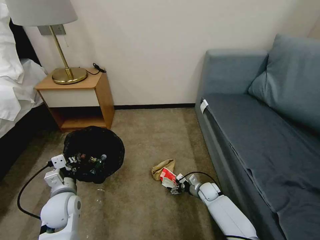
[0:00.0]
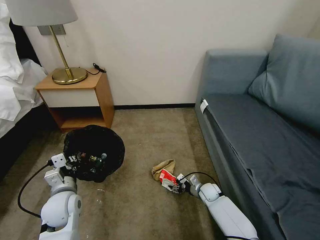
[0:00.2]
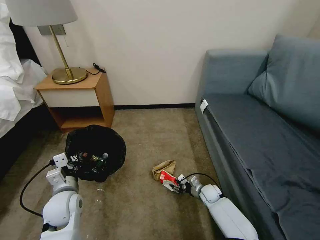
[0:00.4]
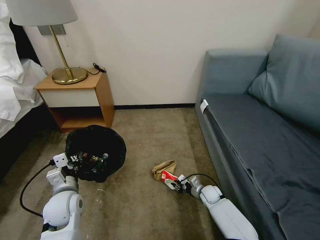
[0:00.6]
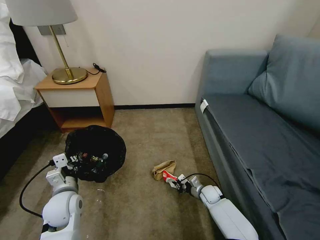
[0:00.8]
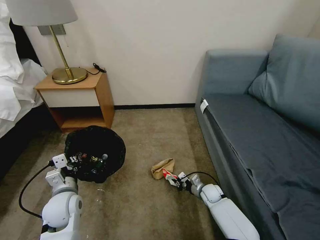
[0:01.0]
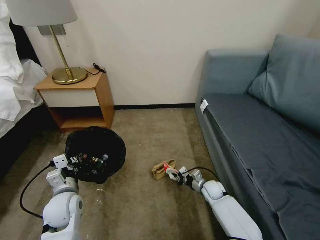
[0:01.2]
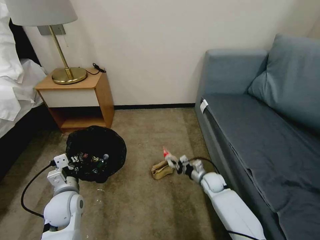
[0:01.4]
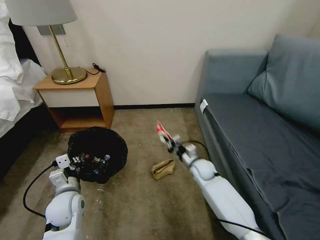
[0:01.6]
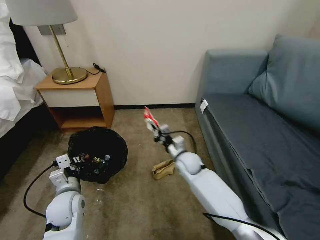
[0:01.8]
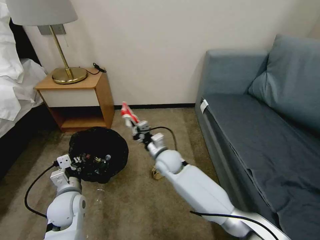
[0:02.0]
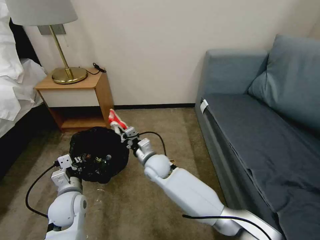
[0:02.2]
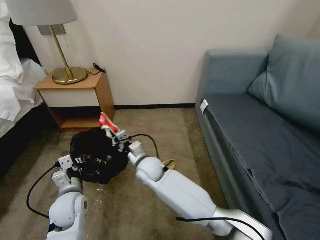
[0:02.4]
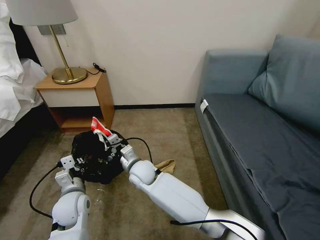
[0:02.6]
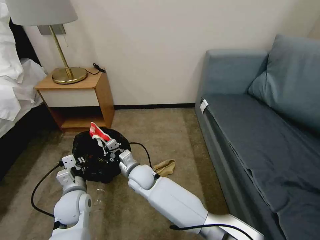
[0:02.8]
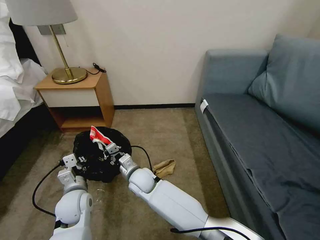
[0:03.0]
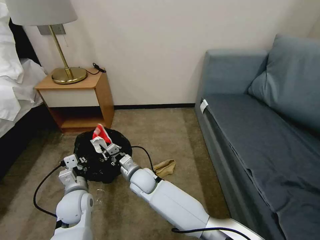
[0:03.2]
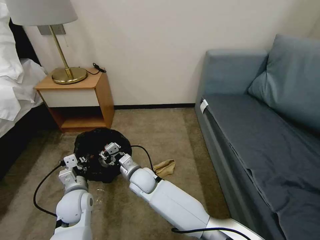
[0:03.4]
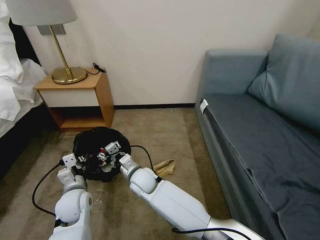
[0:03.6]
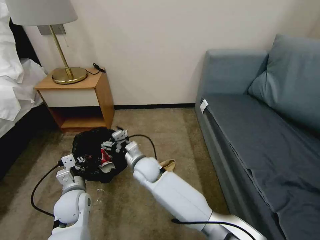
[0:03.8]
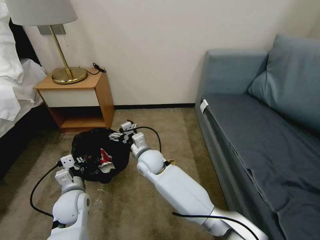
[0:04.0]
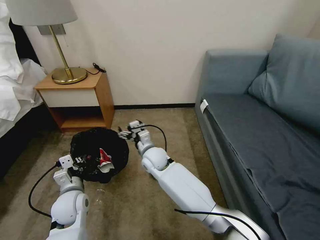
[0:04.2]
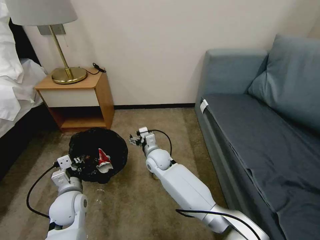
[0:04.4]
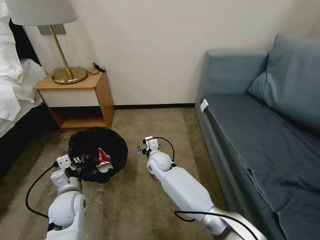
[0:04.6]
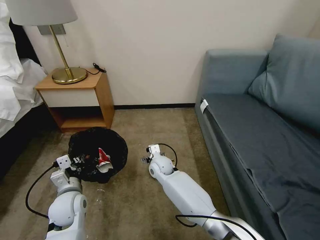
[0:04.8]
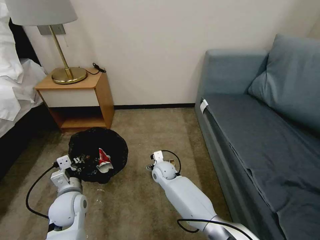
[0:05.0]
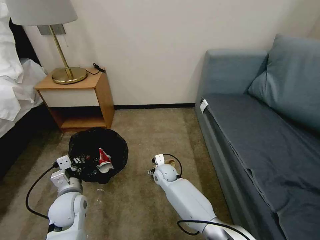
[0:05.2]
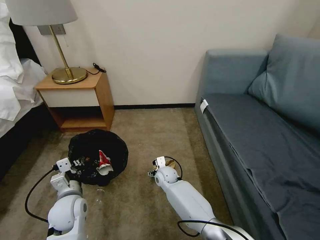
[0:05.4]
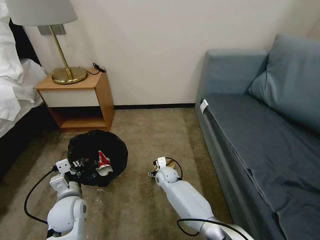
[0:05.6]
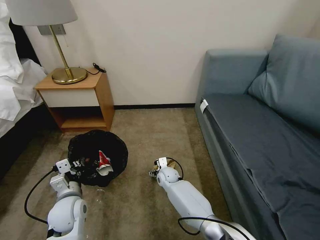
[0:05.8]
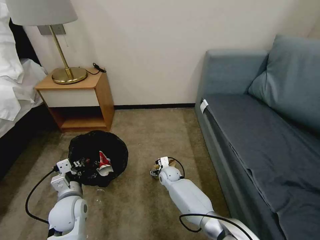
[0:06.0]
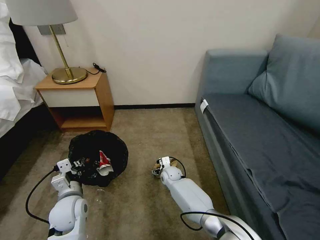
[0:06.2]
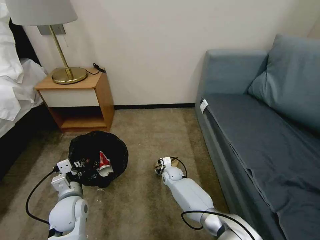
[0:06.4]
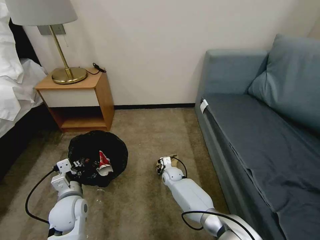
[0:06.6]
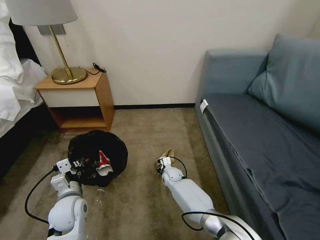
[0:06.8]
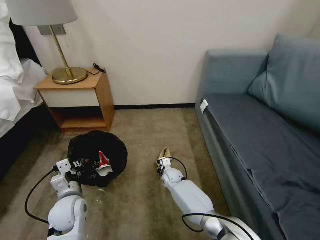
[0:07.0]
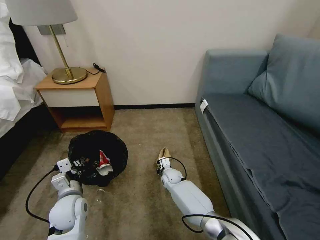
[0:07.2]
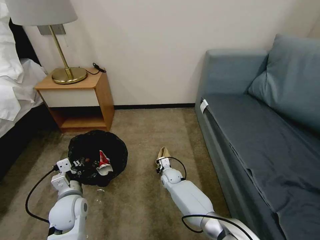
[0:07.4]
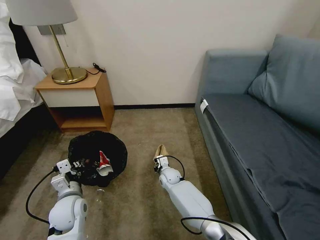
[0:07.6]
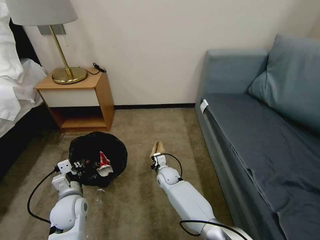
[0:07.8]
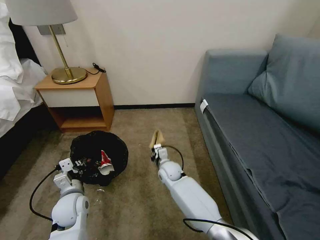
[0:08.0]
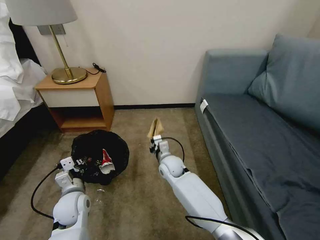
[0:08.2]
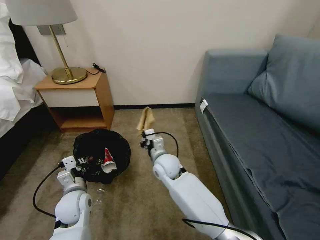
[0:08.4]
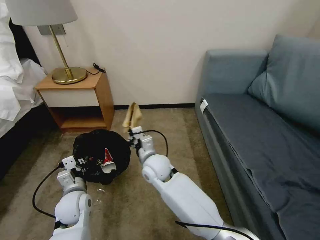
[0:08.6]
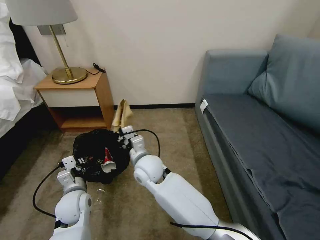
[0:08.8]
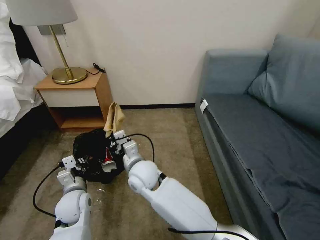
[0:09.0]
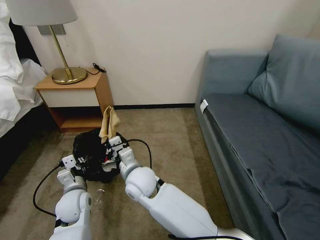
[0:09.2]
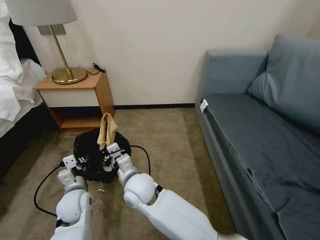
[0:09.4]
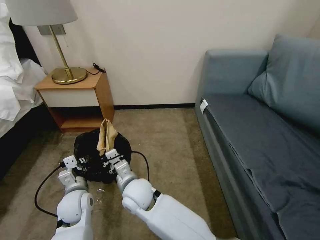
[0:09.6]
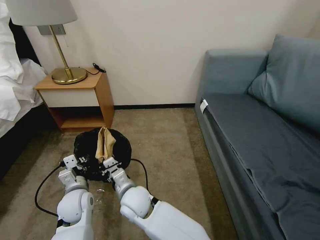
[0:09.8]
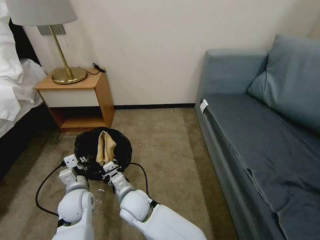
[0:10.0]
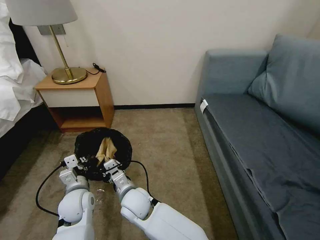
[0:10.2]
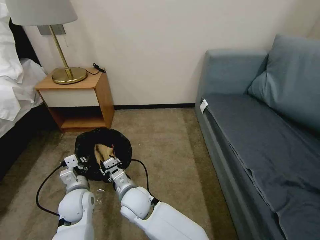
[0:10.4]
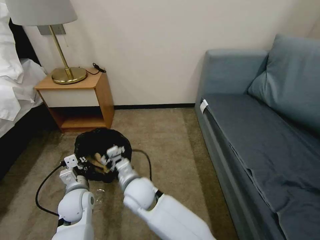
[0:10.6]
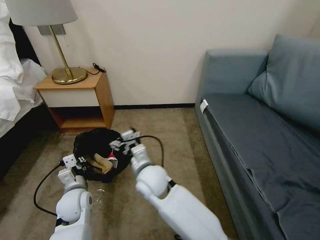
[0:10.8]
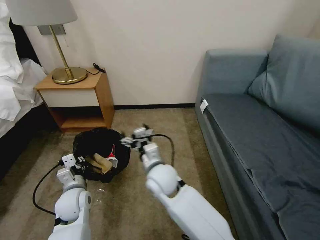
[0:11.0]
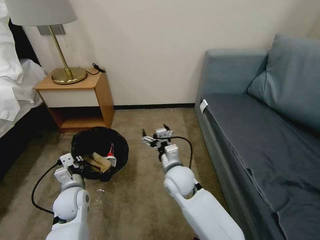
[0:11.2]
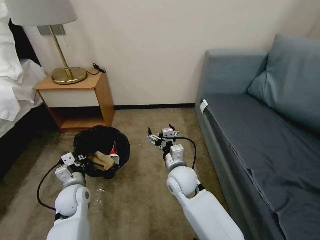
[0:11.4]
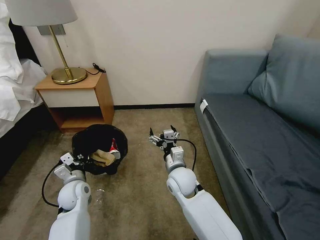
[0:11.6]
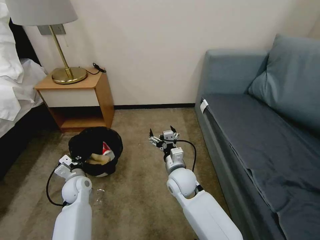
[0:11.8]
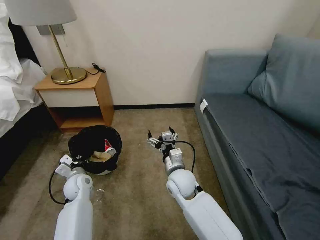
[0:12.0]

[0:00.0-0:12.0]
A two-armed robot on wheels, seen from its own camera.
Task of the whole recording: Pick up the trash bin, then pick up the garbage on the floor and place it into the trash bin.
0.0 to 1.6 s: The right gripper moves upward, about 10 cm, and closes up.
1.6 to 3.0 s: The right gripper shifts approximately 30 cm to the left.
3.0 to 4.4 s: The right gripper goes roughly 10 cm forward and to the right, and opens its fingers.
4.4 to 6.0 s: The right gripper moves downward and to the right, about 15 cm.
6.0 to 7.6 s: The right gripper closes up.
7.6 to 9.0 s: The right gripper moves upward, to the left and backward, approximately 25 cm.
9.0 to 10.4 s: The right gripper moves backward and downward, about 10 cm, and opens.
10.4 to 12.0 s: The left gripper shifts roughly 10 cm forward. Meanwhile the right gripper heads to the right and forward, covering about 15 cm, and opens up.

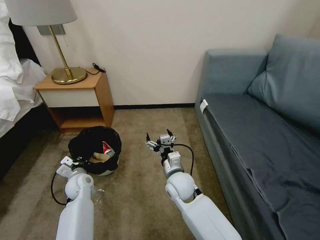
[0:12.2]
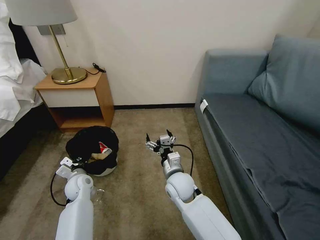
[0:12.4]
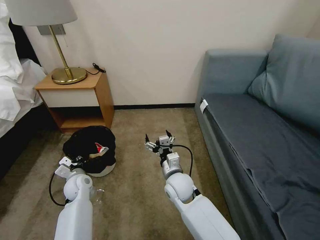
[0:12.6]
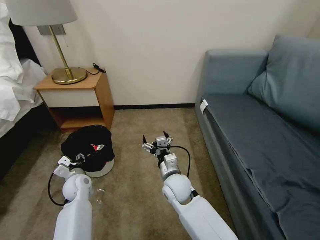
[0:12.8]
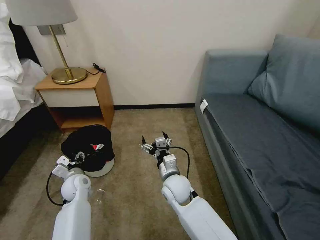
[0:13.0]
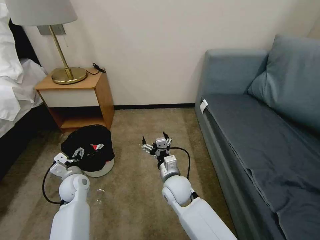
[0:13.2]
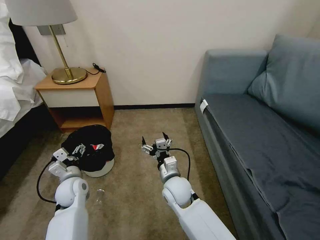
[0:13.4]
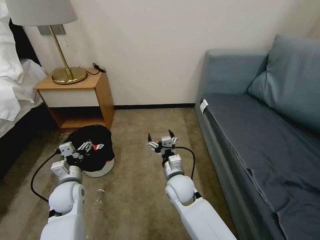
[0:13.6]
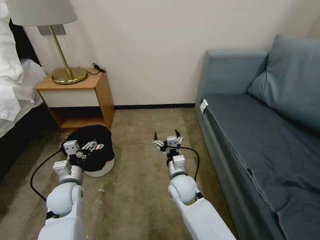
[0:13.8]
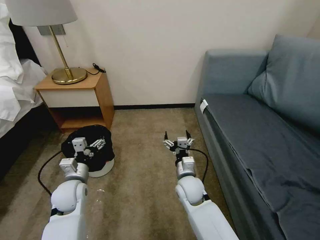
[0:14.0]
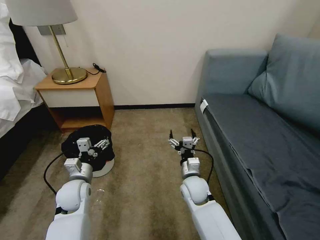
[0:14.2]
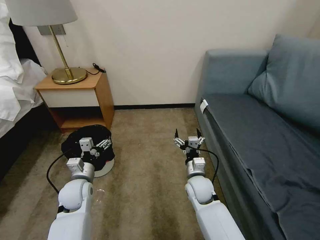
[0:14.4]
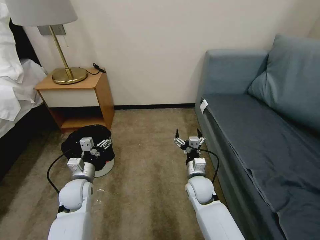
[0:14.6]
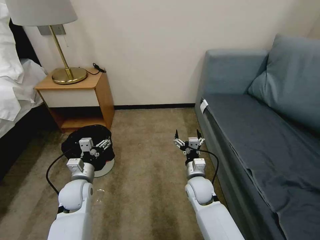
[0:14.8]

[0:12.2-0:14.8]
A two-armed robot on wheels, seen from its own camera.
Task of the whole recording: Pick up the trash bin, then pick up the garbage on the floor and place it into the trash bin.
12.2 to 13.4 s: The left gripper moves approximately 5 cm, and opens up.
13.4 to 14.8 s: The right gripper is displaced to the right by approximately 10 cm.

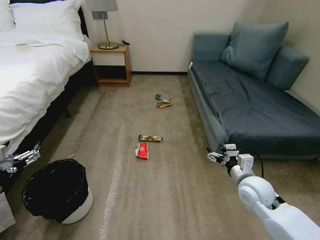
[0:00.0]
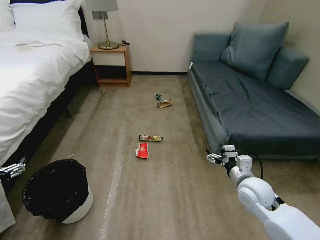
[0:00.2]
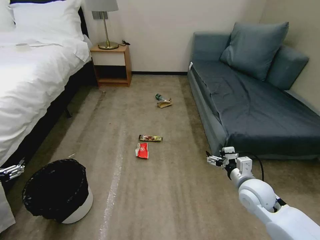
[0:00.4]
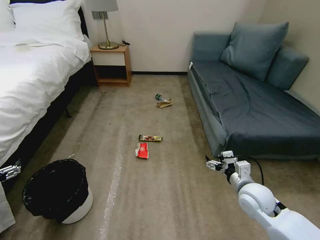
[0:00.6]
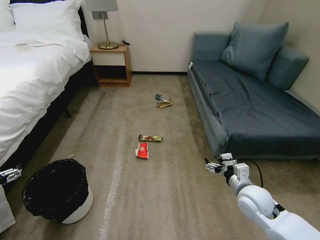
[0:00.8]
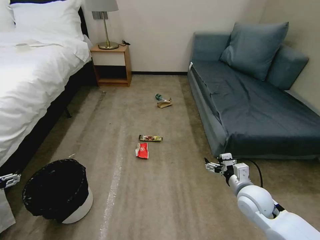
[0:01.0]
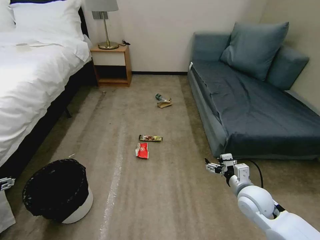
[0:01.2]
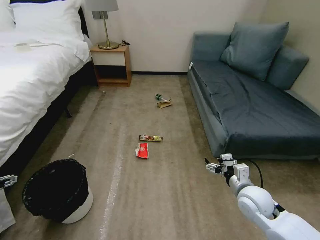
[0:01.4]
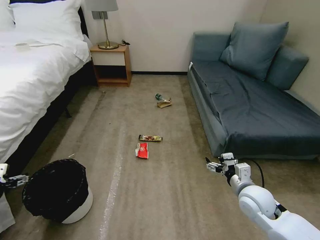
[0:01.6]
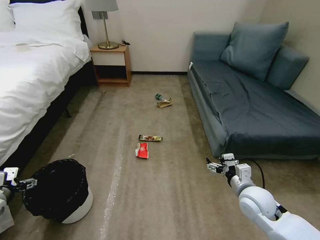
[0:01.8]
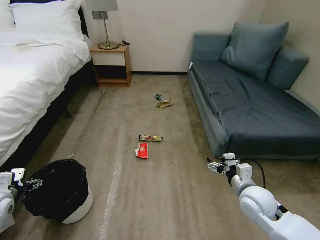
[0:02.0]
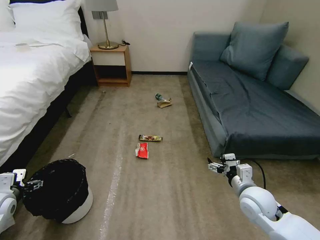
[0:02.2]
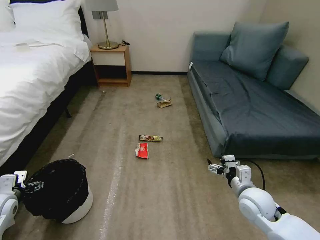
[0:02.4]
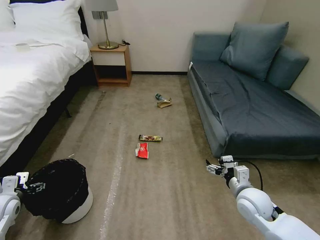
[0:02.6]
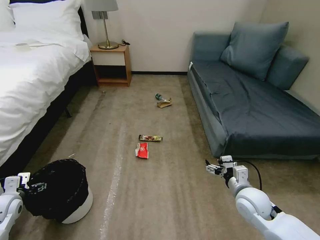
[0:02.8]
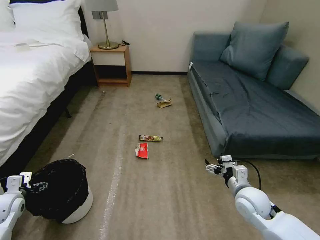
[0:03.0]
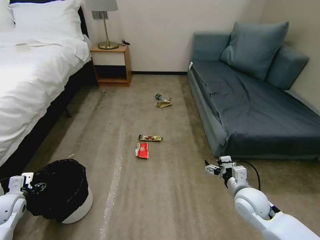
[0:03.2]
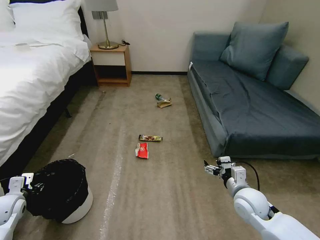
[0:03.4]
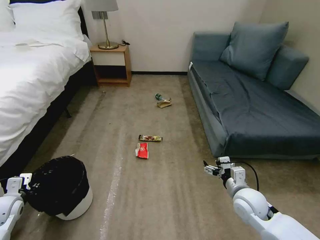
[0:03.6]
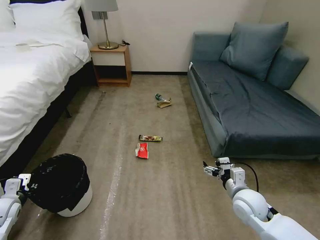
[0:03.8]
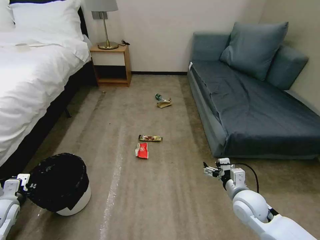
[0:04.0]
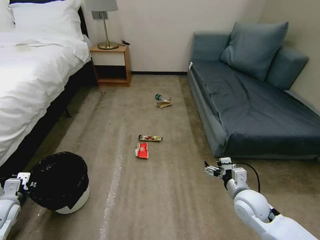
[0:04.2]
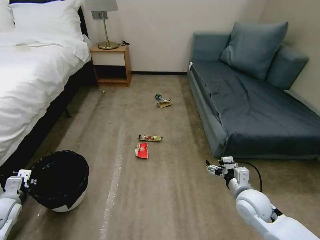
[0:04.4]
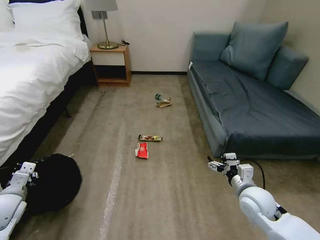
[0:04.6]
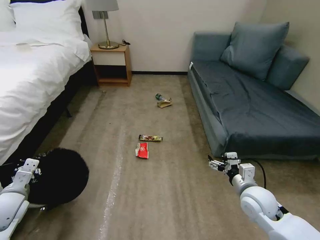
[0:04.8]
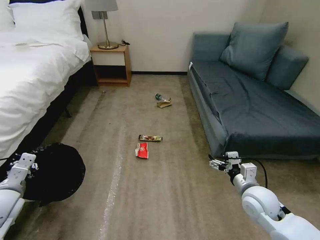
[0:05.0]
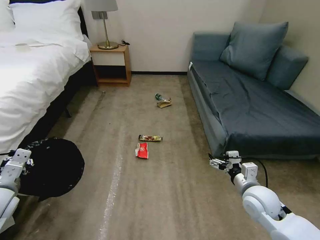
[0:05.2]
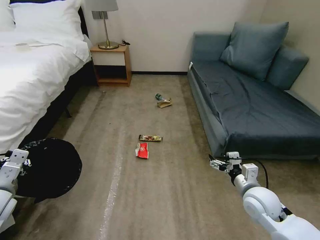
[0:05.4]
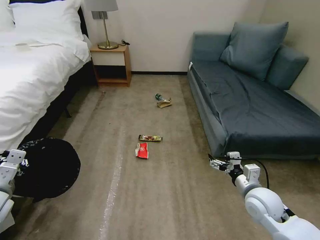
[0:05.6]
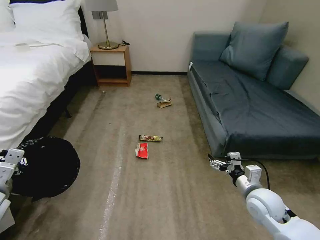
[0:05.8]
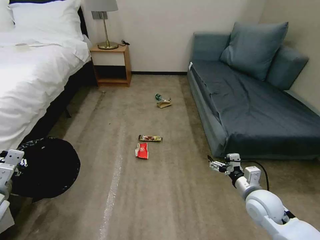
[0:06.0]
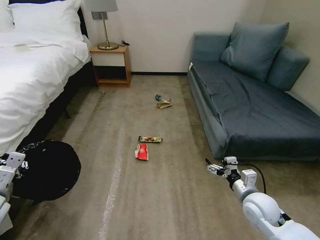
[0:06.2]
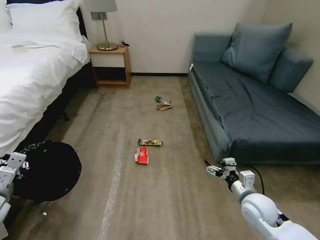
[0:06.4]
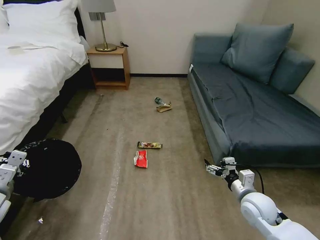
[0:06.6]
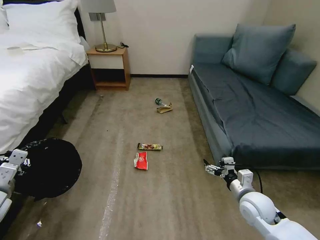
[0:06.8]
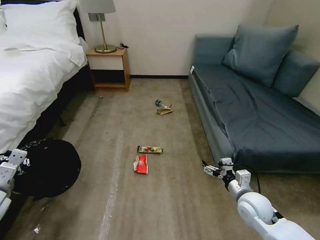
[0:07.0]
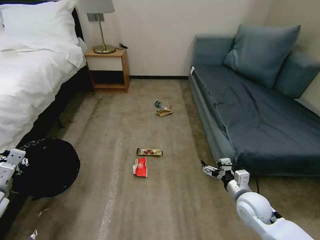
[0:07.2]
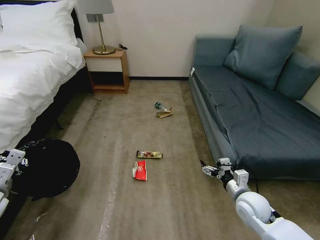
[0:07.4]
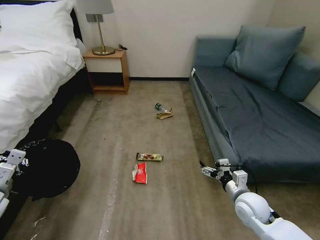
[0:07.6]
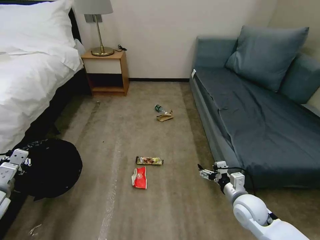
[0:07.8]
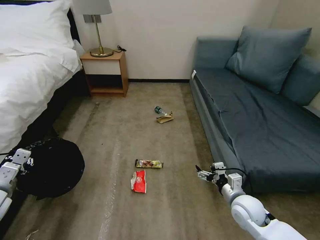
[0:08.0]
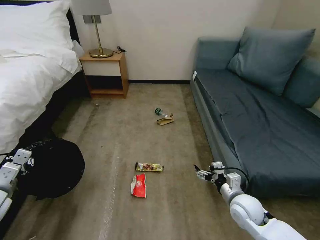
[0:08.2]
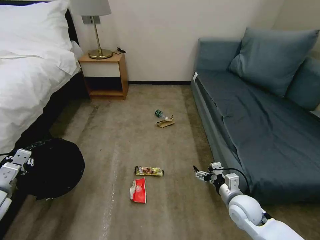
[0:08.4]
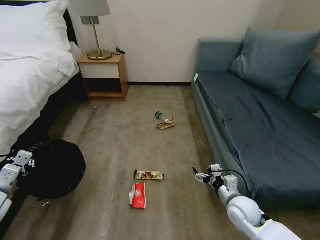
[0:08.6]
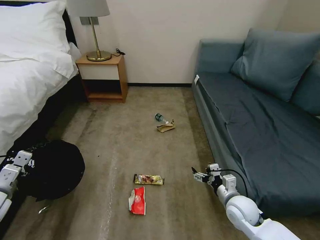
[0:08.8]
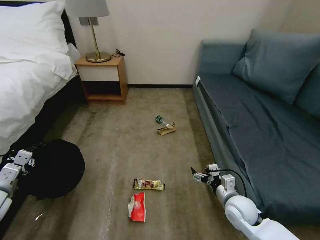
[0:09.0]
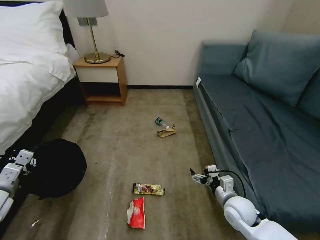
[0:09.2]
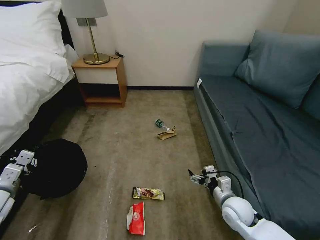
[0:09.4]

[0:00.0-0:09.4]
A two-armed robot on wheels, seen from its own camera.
Task of the whole recording: Pick up the trash bin, then pick up the garbage on the floor and place it into the trash bin.
1.6 to 3.2 s: The left gripper moves downward, roughly 10 cm.
3.2 to 4.8 s: The left gripper is displaced to the right and upward by approximately 10 cm, and closes.
4.8 to 6.2 s: The left gripper moves some 5 cm.
